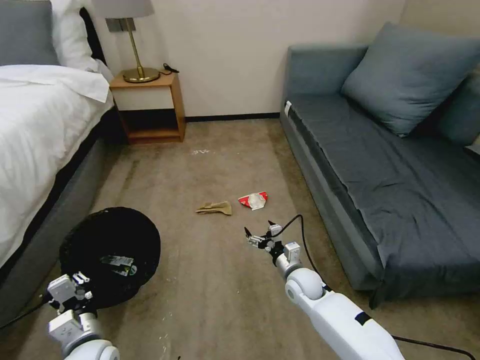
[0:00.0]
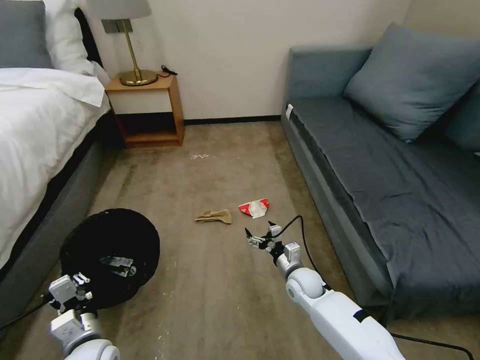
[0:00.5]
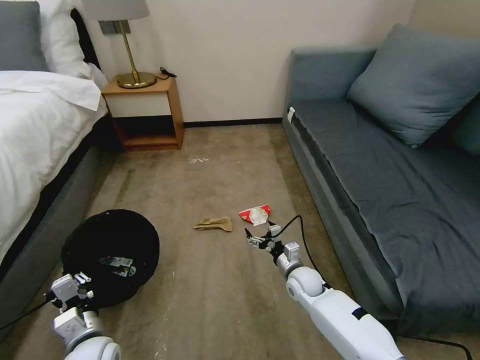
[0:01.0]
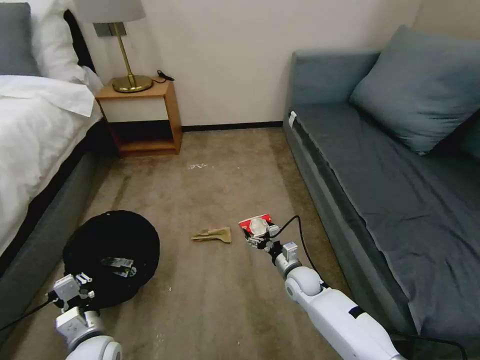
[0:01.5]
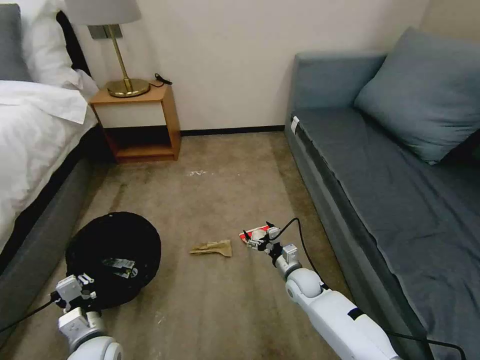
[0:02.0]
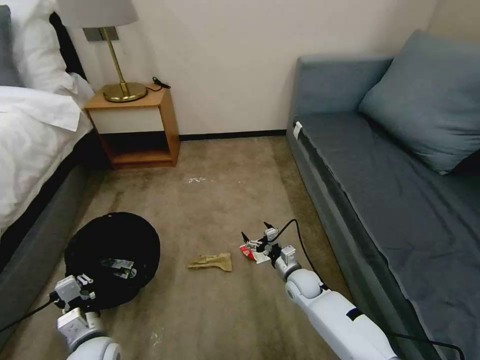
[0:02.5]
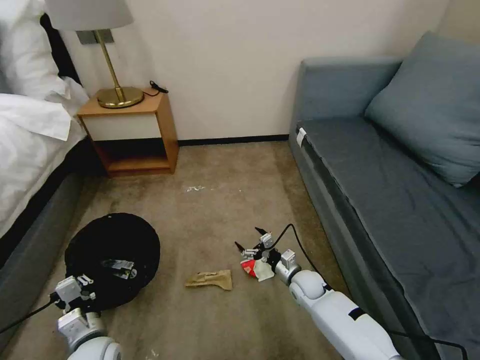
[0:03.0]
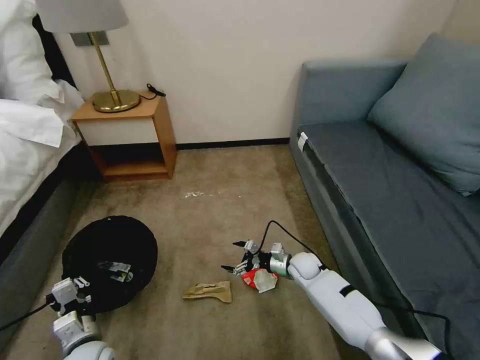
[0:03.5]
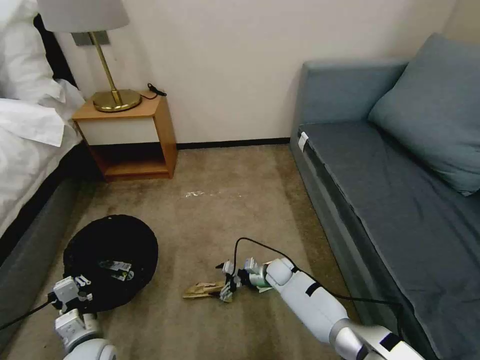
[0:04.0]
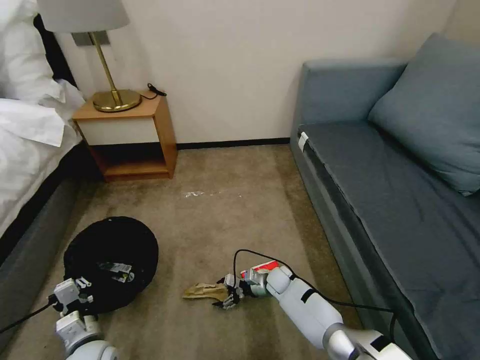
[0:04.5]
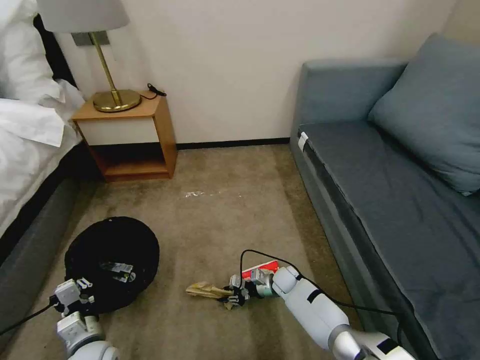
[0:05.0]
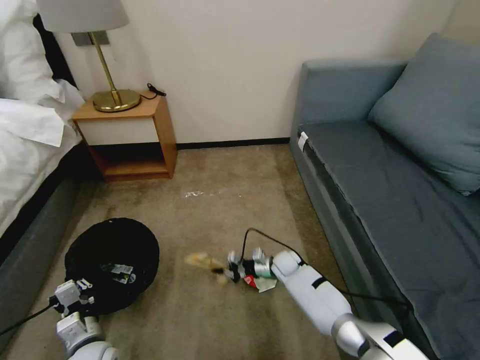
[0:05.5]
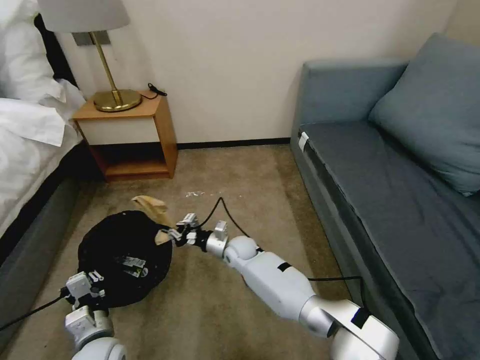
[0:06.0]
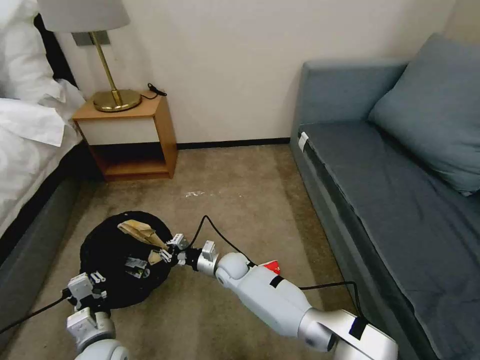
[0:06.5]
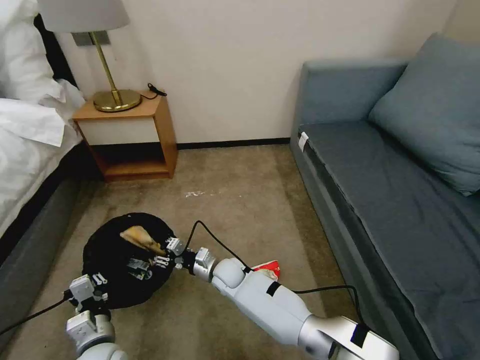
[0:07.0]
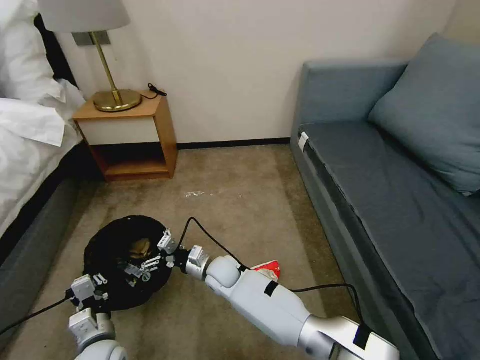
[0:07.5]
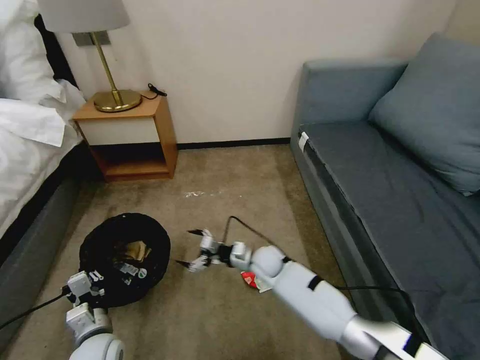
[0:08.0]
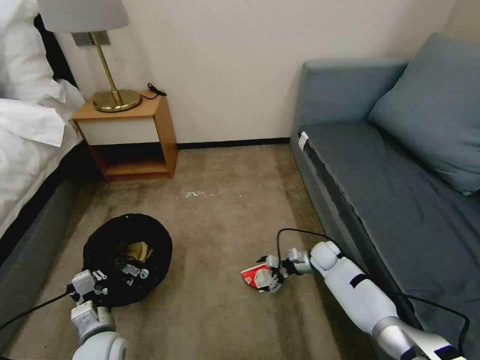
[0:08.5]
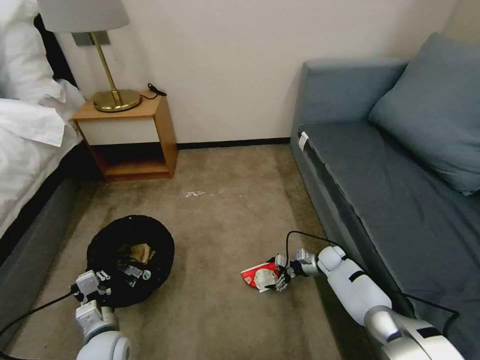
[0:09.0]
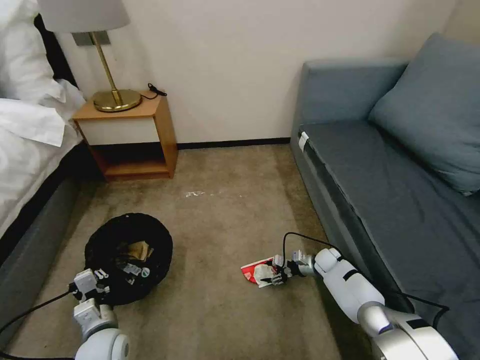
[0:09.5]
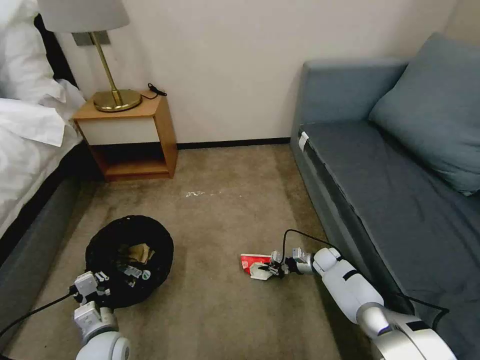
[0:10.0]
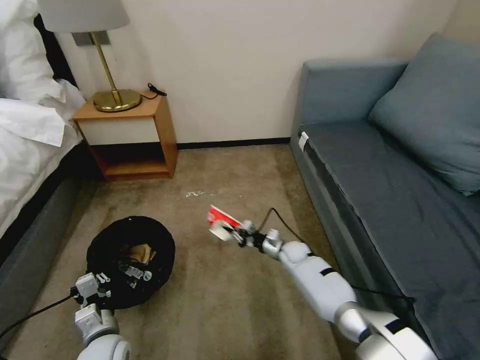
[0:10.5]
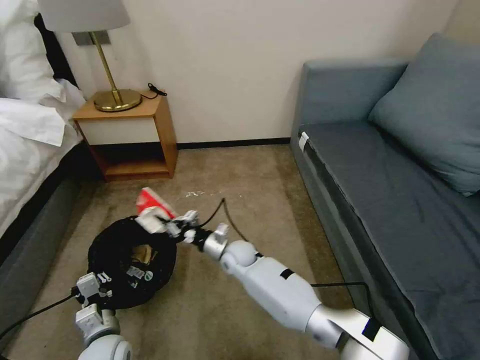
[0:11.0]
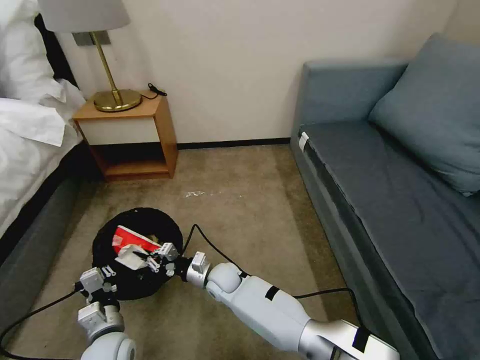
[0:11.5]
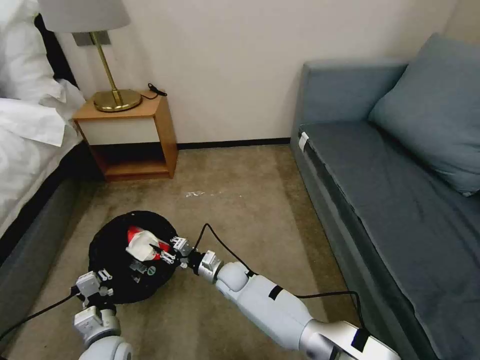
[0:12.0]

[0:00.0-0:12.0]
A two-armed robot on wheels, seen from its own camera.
Task of the whole recording: Pick up the trash bin, then pick up the garbage on the floor and place it into the trash bin.
0:02.0 to 0:04.0: The right gripper moves forward, roughly 5 cm.
0:04.0 to 0:06.0: The right gripper moves to the left and upward, some 15 cm, and closes.
0:06.0 to 0:08.0: The right gripper heads to the right, covering about 10 cm, and opens its fingers.
0:08.0 to 0:10.0: The right gripper travels to the right and downward by some 25 cm, and closes.
0:10.0 to 0:12.0: The right gripper heads to the left, covering about 35 cm.

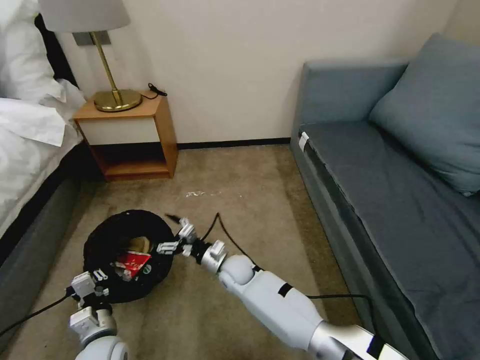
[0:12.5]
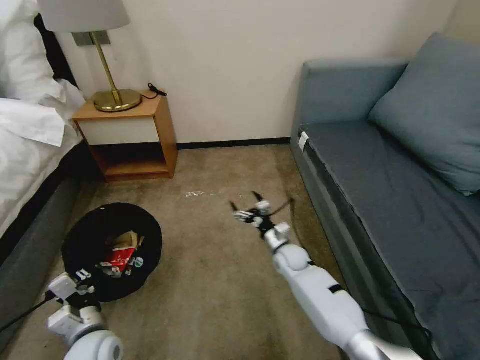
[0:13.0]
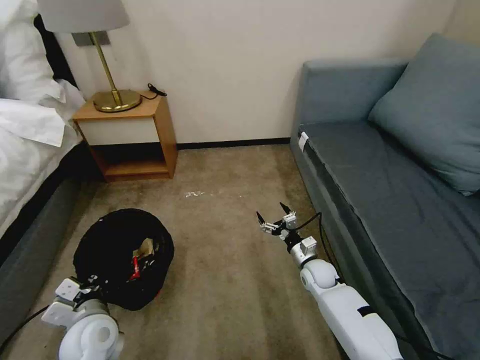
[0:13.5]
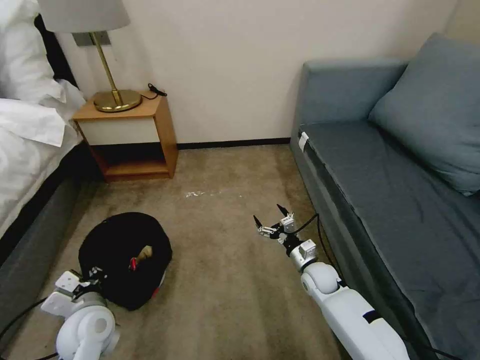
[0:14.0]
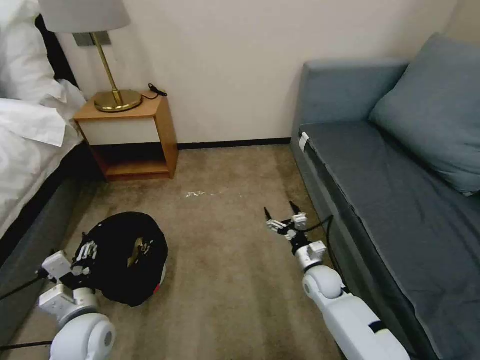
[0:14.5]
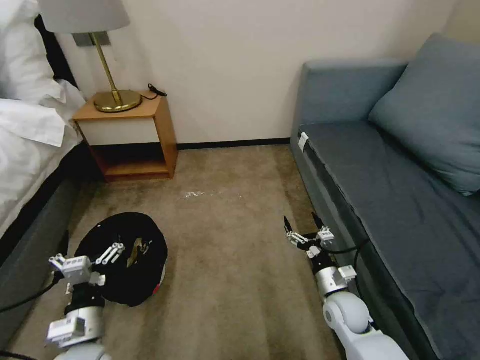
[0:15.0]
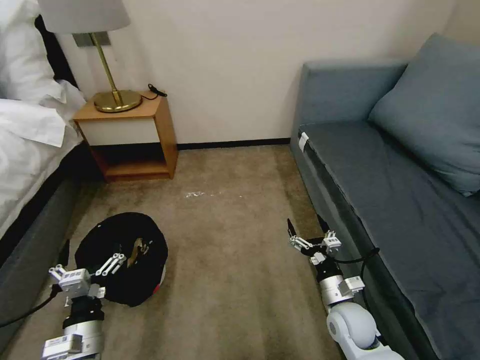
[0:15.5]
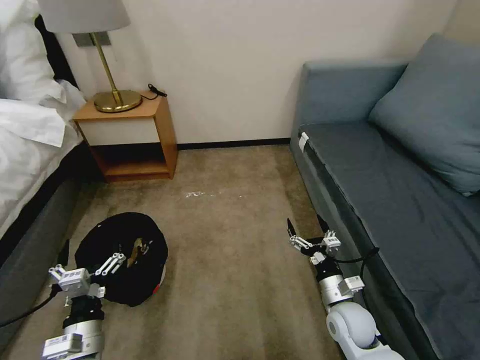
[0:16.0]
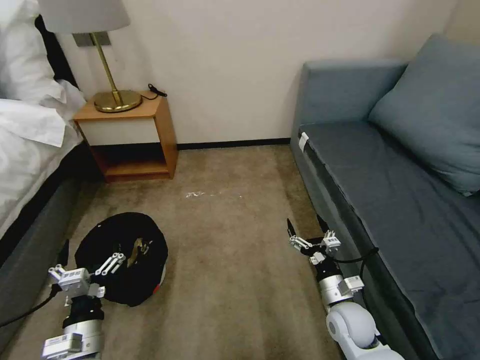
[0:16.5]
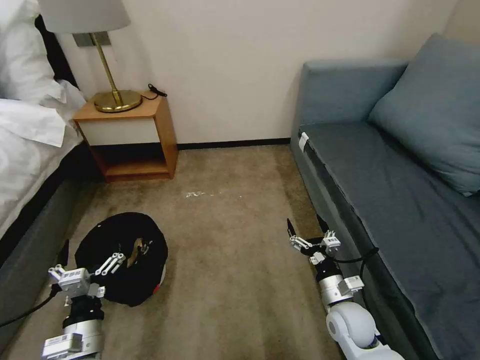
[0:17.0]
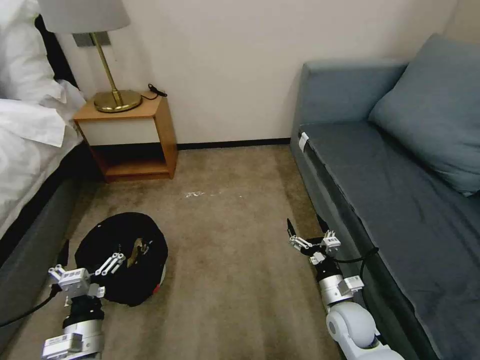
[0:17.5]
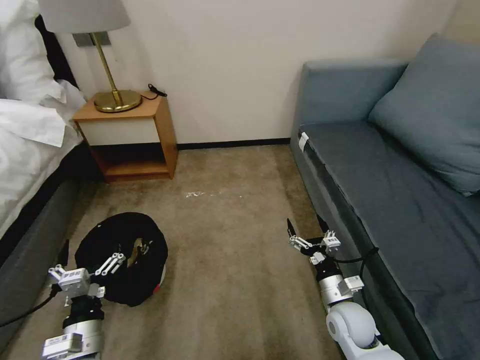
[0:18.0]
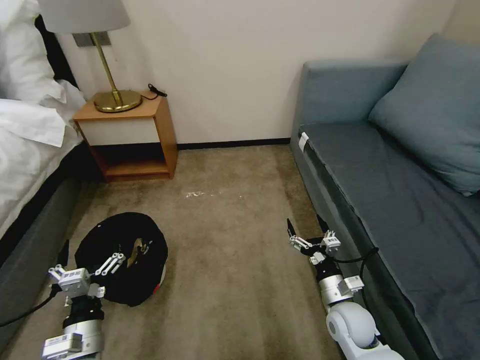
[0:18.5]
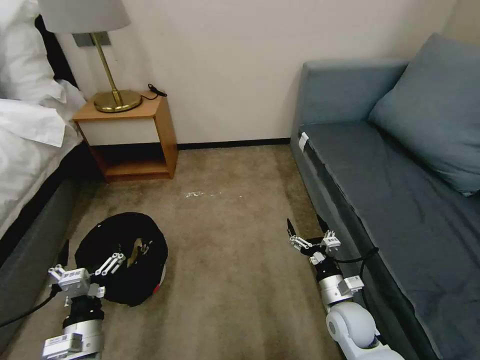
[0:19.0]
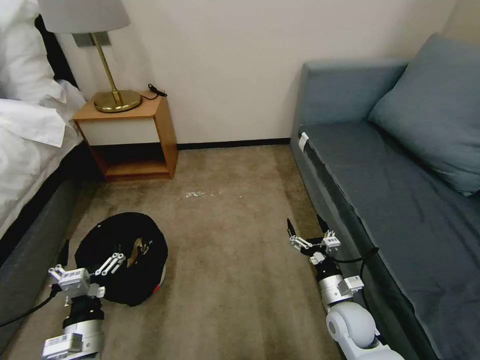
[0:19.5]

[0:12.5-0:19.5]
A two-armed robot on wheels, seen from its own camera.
Task of the whole recording: Pick up the trash bin, then pick up the garbage on the floor and place it into the trash bin.
0:12.5 to 0:14.5: The right gripper goes some 25 cm to the right. The left gripper travels upward by about 10 cm, and opens up.
0:14.5 to 0:16.0: The two grippers go some 10 cm backward.
0:16.0 to 0:19.5: The two grippers keep their place.
